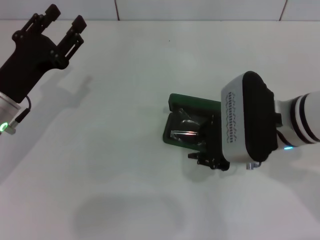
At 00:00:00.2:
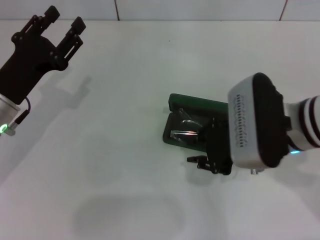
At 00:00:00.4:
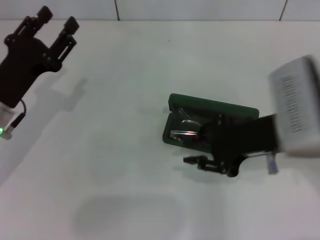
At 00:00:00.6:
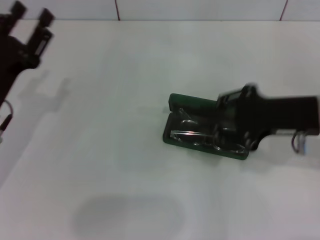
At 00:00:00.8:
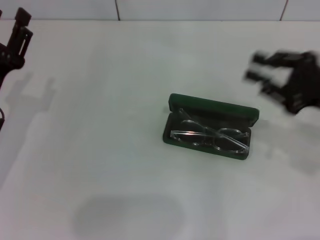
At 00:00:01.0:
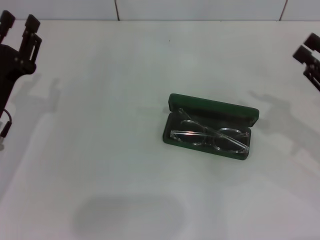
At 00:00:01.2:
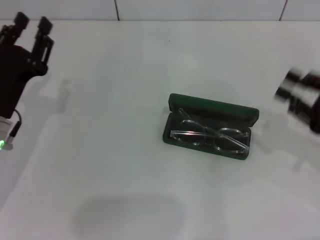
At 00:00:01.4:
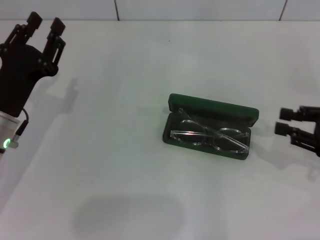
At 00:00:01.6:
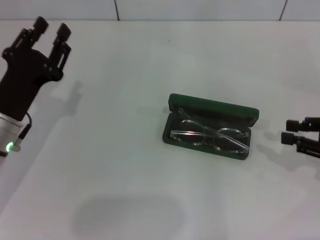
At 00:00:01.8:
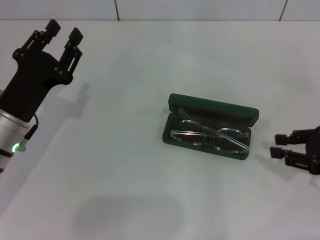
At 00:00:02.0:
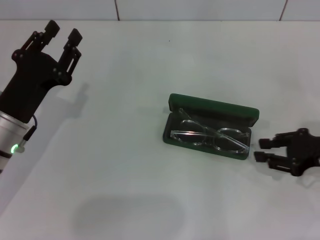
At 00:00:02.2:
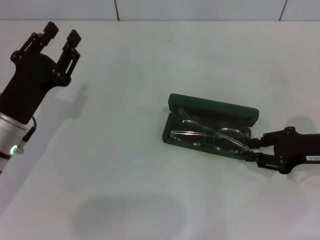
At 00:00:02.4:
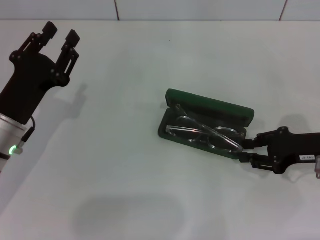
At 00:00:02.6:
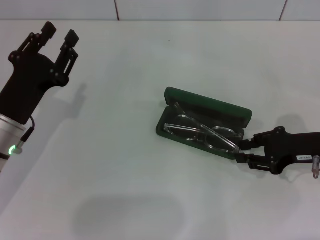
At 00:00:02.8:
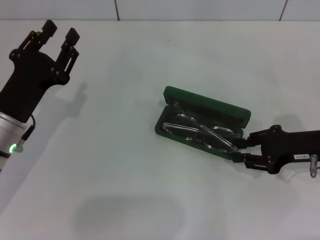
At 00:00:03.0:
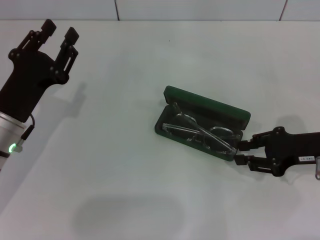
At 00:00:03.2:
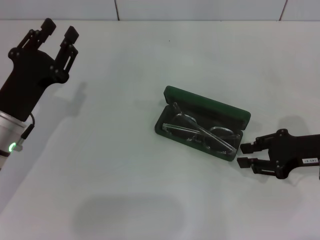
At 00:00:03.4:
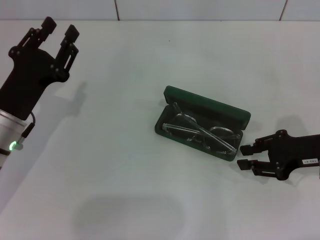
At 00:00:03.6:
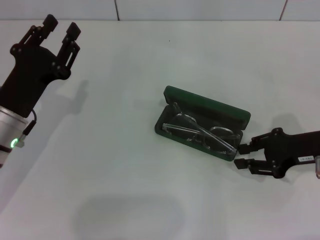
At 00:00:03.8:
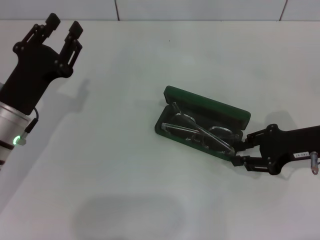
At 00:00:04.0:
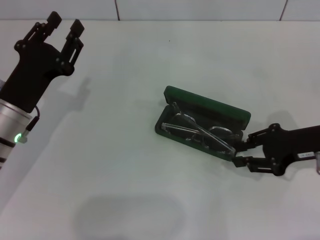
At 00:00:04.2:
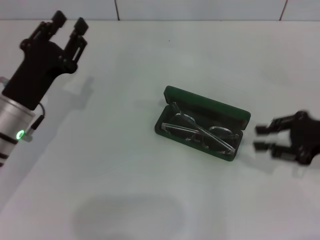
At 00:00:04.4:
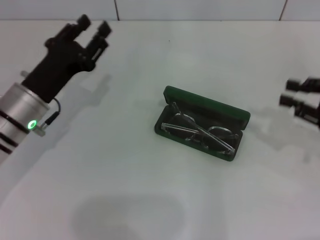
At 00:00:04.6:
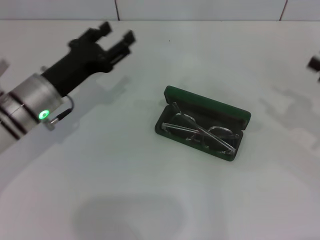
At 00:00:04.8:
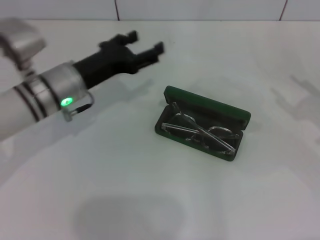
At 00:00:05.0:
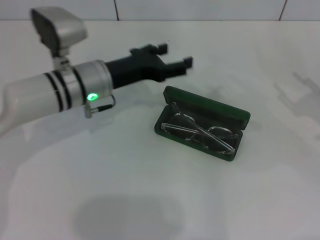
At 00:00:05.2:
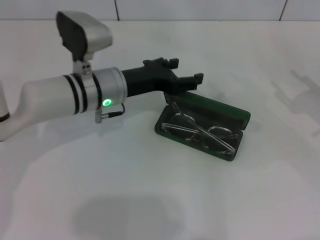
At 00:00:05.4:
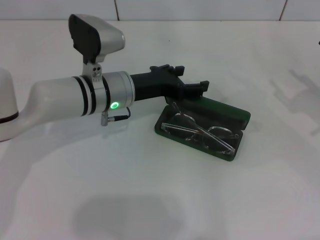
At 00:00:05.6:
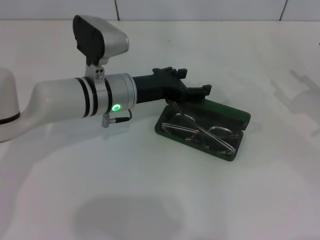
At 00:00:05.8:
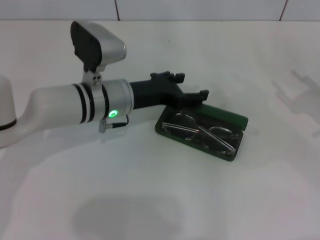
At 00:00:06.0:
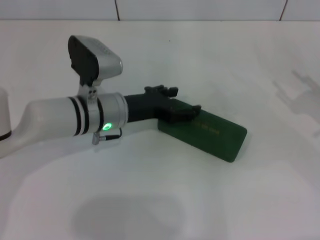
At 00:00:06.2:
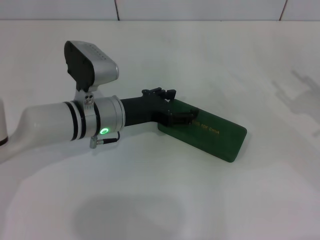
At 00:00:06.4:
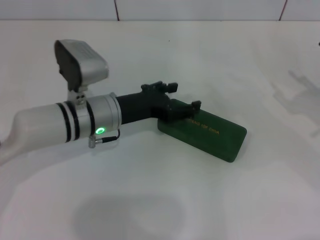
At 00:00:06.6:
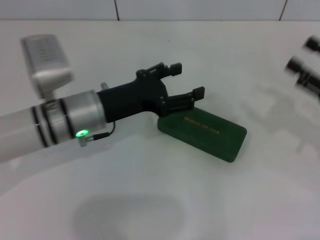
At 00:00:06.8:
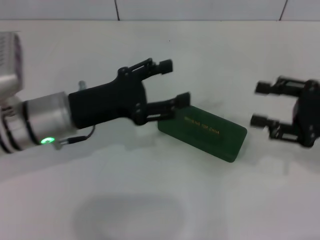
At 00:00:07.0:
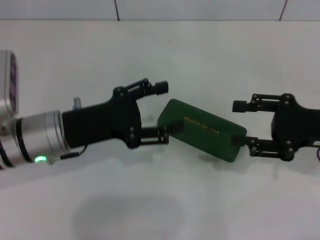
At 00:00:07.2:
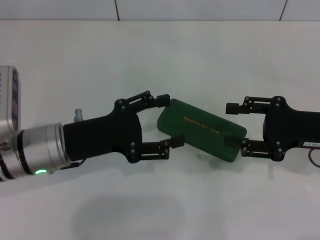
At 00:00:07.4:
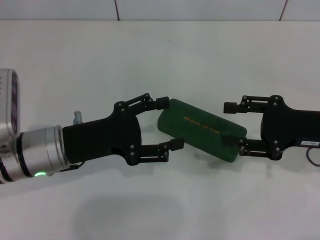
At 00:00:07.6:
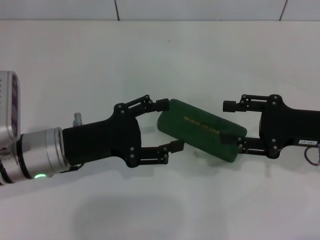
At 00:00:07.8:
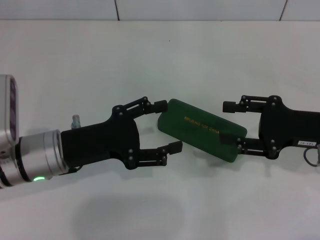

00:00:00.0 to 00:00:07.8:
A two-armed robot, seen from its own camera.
Step, 00:00:00.0 to 00:00:06.2: Close the glasses case with your left hand.
00:00:00.0 to 00:00:01.6: The right gripper heads to the right, covering about 20 cm.
00:00:01.6 to 00:00:03.2: The right gripper is displaced to the left by roughly 5 cm.
00:00:03.2 to 00:00:04.6: The left gripper goes approximately 5 cm forward; the right gripper travels to the right by about 10 cm.
00:00:04.6 to 00:00:06.2: The right gripper opens its fingers. Meanwhile the left gripper heads to the right, covering roughly 10 cm, and opens up.
00:00:06.2 to 00:00:07.8: The left gripper travels backward and to the left by about 10 cm. The right gripper is displaced to the left by about 10 cm.
